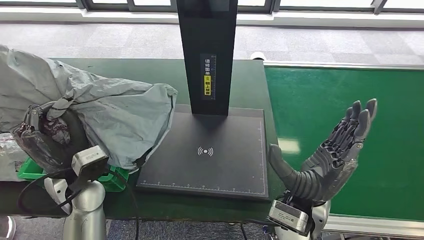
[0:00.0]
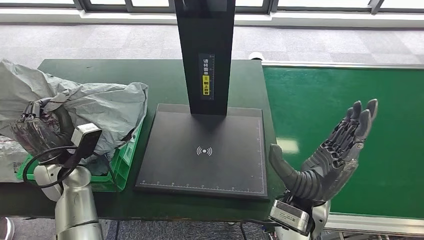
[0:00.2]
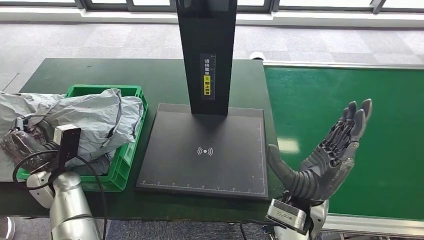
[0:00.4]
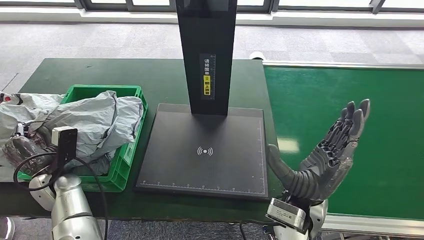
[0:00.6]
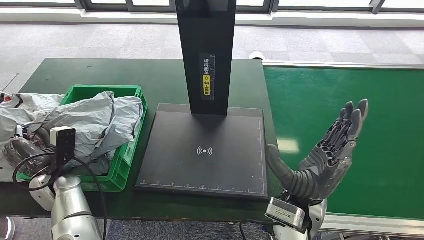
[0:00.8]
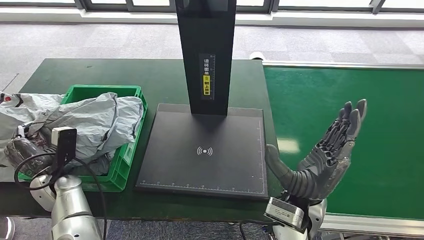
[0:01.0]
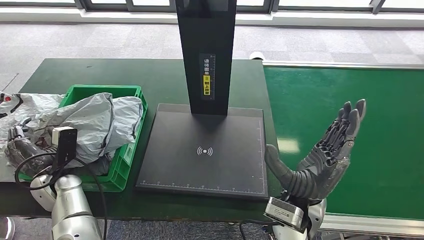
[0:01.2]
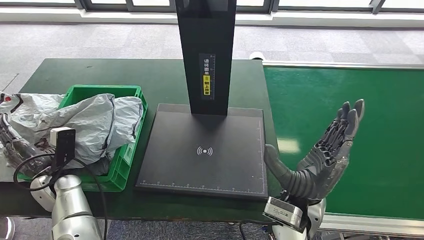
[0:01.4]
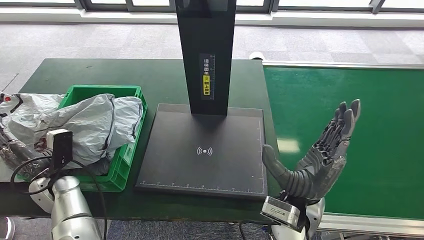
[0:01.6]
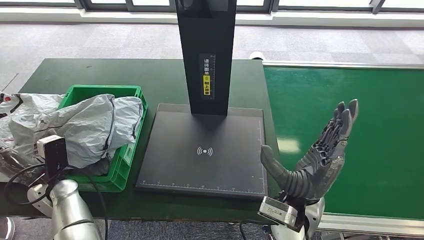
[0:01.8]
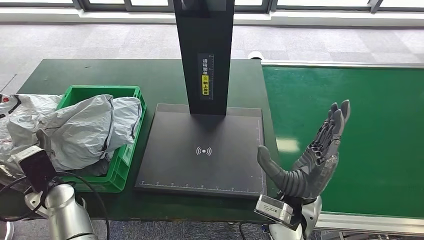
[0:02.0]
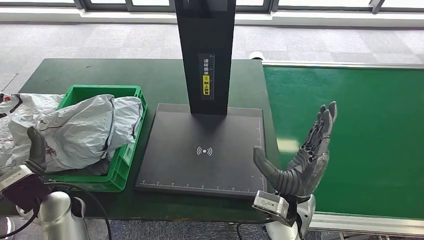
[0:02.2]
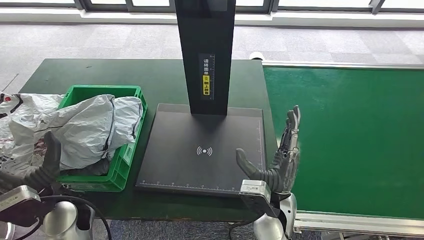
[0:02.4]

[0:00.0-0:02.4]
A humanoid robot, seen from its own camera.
Step, 0:00.0 to 0:02.4: Place the parcel into the delivery box.
0:01.2 to 0:02.4: The right hand moves about 5 cm. Meanwhile the left hand is displaced to the right, upward and backward by about 15 cm.
